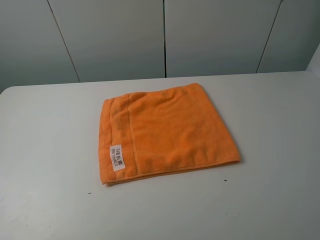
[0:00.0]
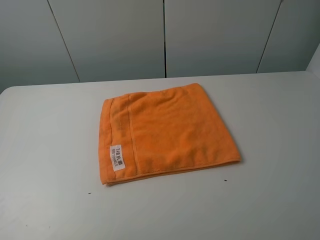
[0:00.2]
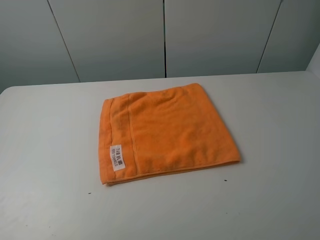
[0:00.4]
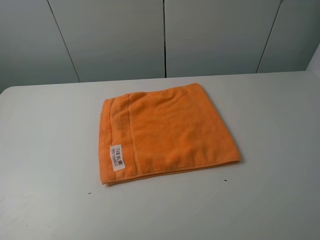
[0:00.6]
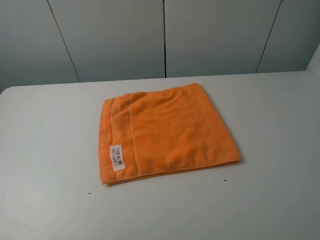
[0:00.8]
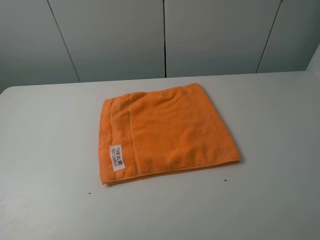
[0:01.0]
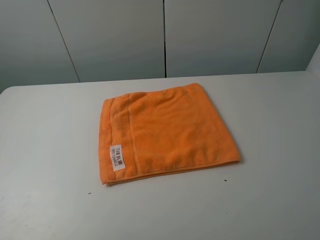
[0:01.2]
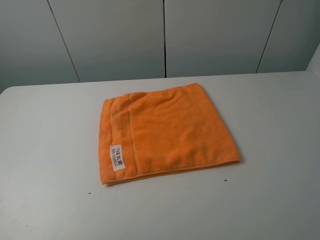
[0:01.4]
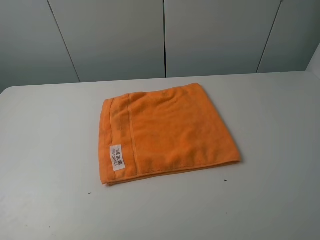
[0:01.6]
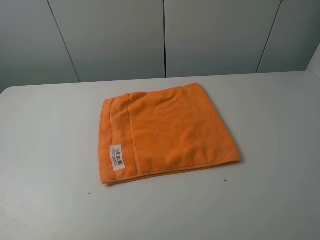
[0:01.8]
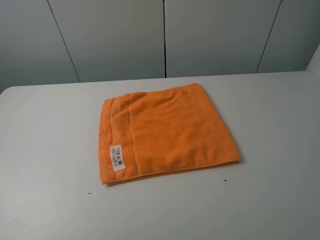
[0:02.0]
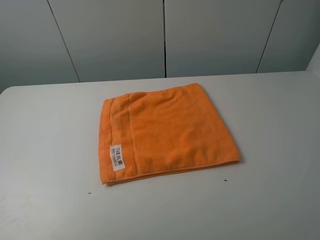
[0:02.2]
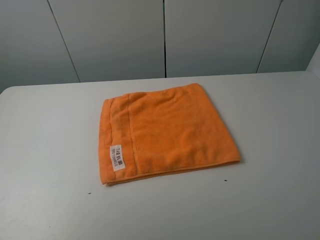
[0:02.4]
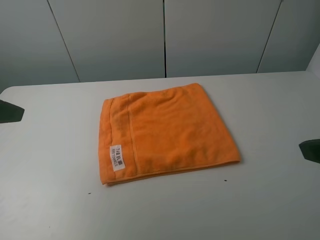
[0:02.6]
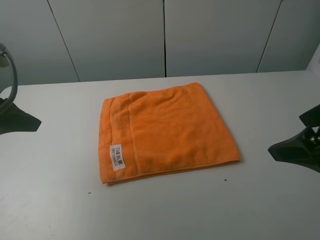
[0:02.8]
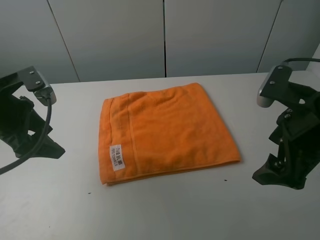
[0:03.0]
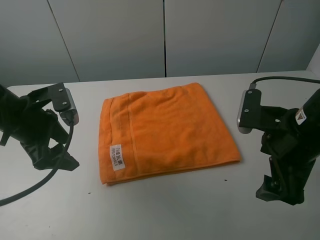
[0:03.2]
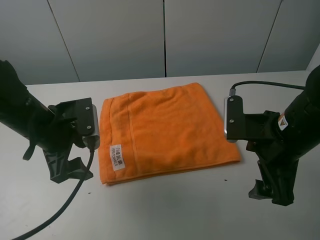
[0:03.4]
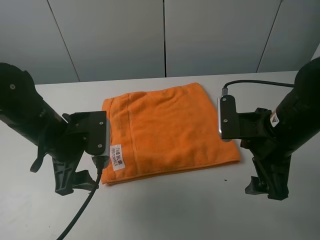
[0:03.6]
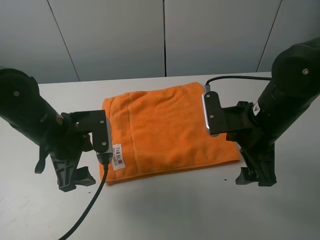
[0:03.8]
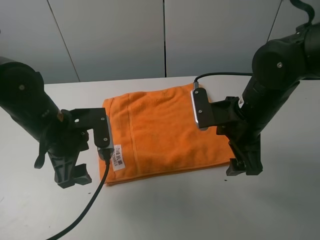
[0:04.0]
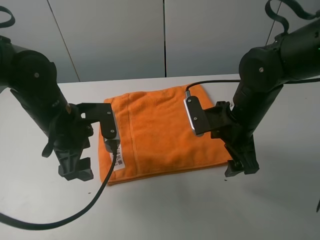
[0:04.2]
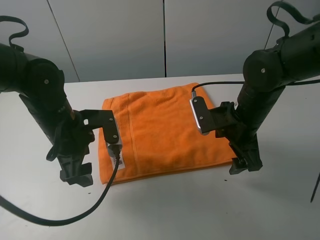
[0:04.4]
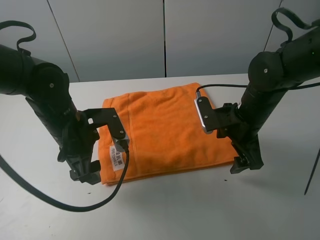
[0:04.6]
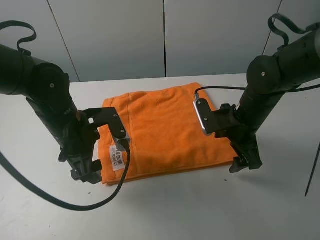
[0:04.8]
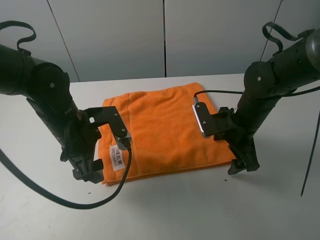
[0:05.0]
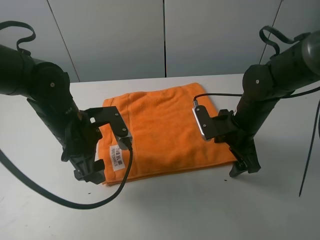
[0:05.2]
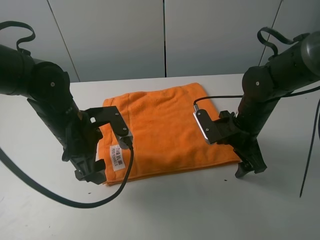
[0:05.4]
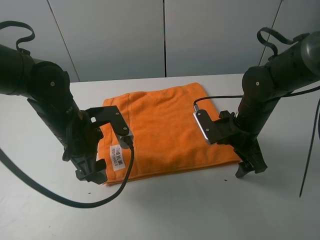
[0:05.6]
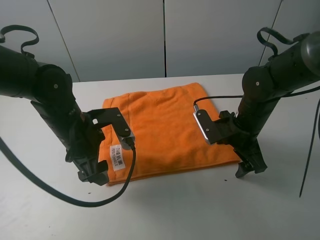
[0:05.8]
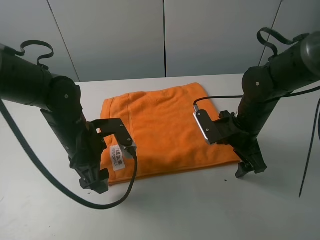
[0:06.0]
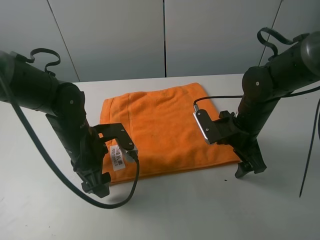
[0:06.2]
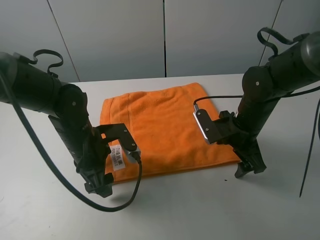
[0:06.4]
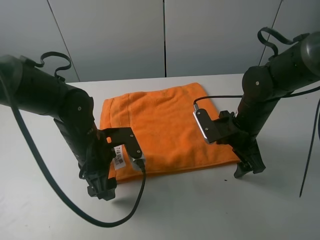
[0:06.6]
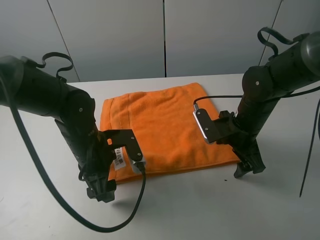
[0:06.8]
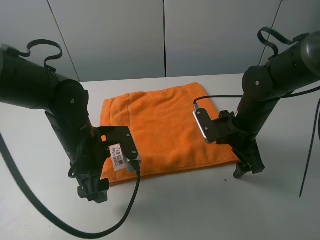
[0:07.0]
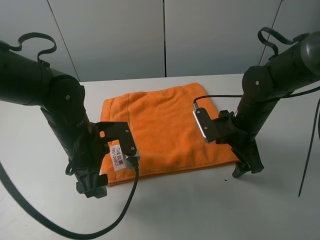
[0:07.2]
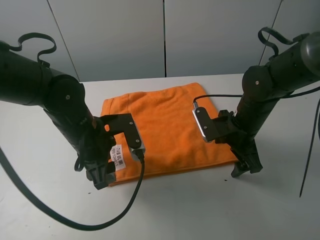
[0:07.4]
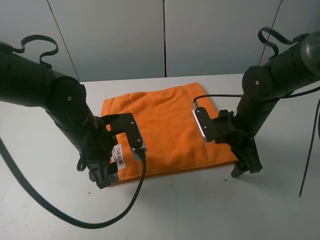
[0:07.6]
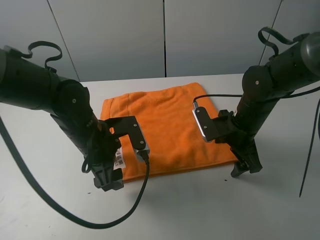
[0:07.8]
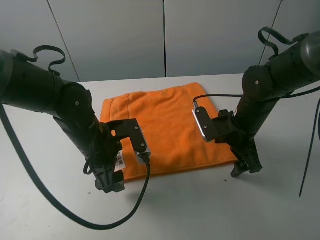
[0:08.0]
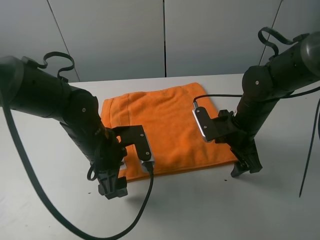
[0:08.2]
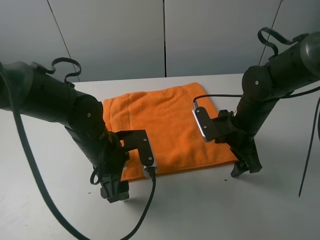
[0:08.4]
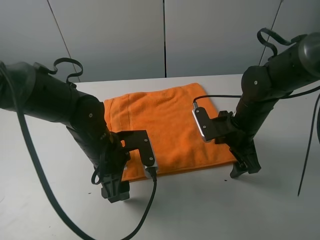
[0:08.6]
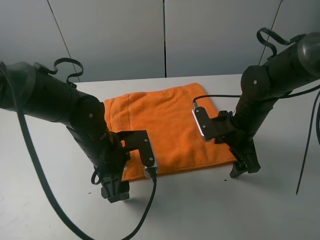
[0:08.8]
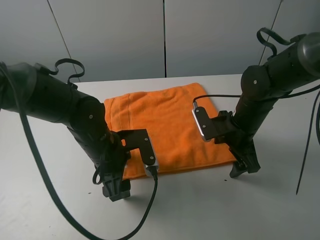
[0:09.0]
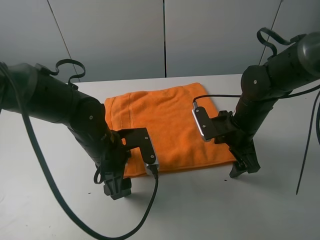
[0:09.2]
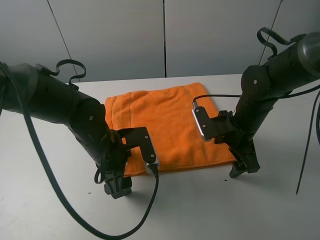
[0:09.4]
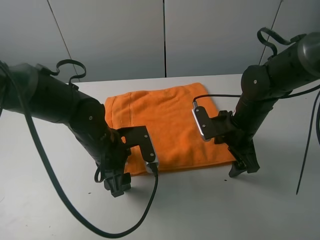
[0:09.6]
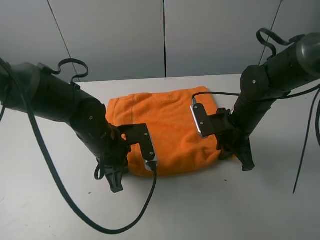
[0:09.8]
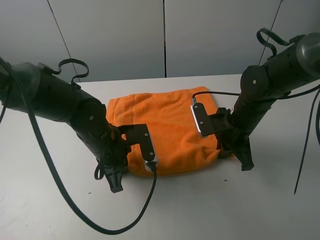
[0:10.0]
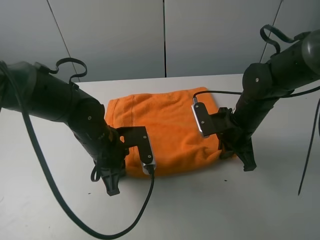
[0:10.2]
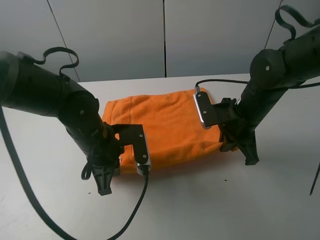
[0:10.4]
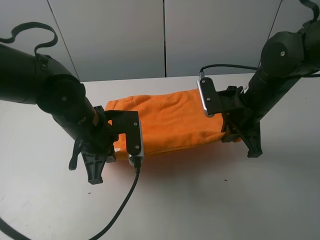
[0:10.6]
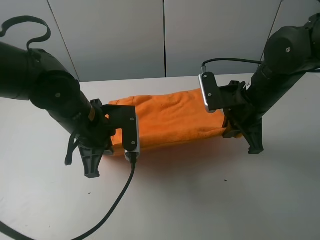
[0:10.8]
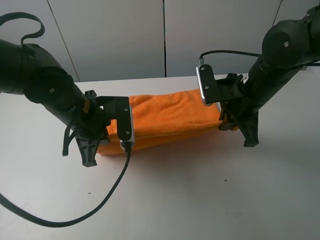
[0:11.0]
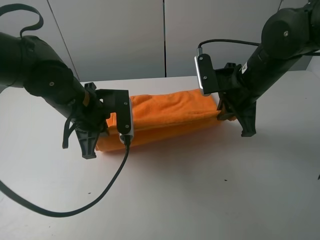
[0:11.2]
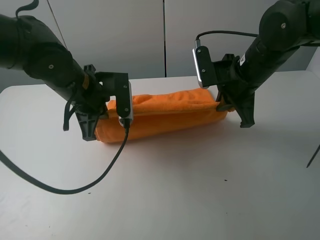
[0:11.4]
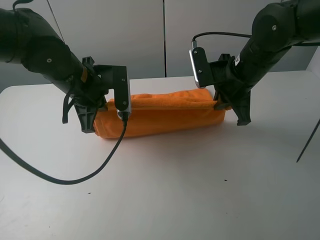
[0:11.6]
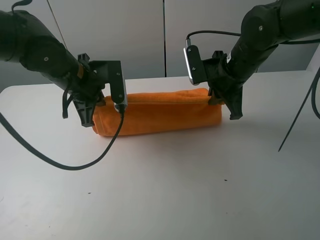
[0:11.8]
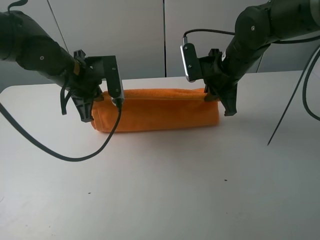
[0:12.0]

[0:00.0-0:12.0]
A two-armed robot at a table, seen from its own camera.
Task of the whole recording: fold the towels on the table.
Step, 0:00.0 to 0:09.8: Grasp the orange towel with the right gripper.
0:00.0 to 0:01.6: Both grippers stay about where they are.
0:01.6 to 0:03.0: The left gripper shifts about 25 cm forward. Meanwhile the right gripper goes roughly 20 cm forward, to the left and downward.
0:03.0 to 0:04.4: The left gripper goes roughly 10 cm to the right and downward. The right gripper travels forward, downward and to the left by about 10 cm.
0:04.4 to 0:07.6: The grippers move only a little.
0:07.6 to 0:09.0: There are only small adjustments of the grippers.
0:09.0 to 0:10.4: The left gripper closes its fingers; the right gripper closes.
0:10.4 to 0:12.0: The left gripper heads forward, upward and to the left, covering about 15 cm. Meanwhile the right gripper travels forward by approximately 5 cm.

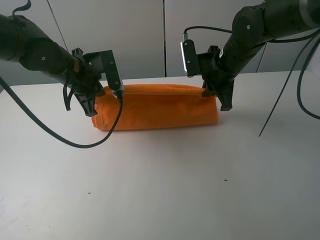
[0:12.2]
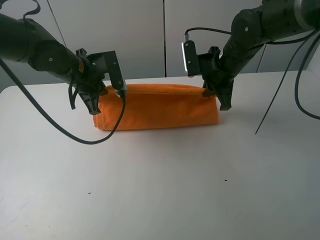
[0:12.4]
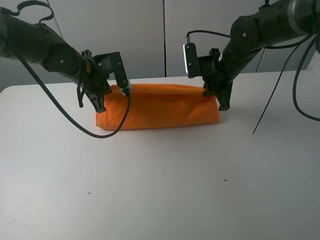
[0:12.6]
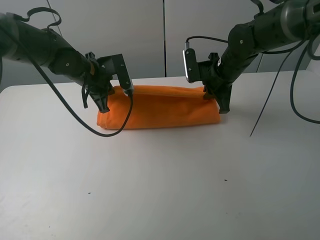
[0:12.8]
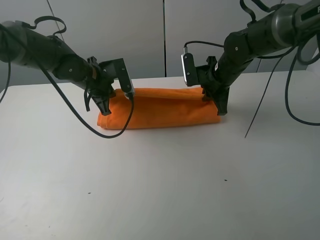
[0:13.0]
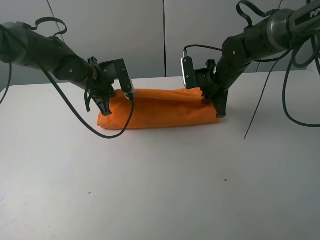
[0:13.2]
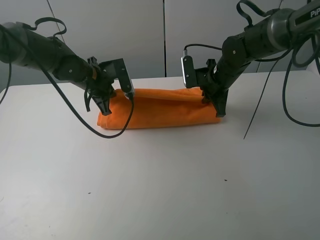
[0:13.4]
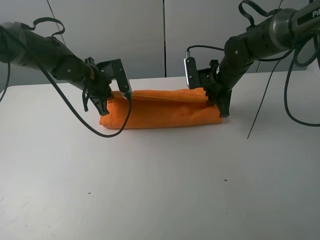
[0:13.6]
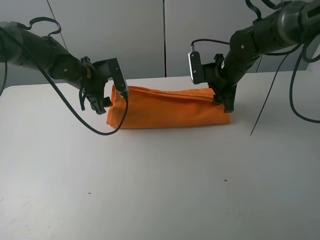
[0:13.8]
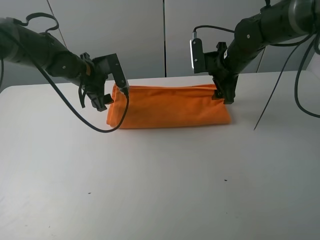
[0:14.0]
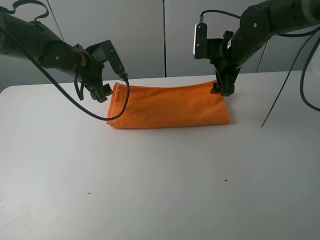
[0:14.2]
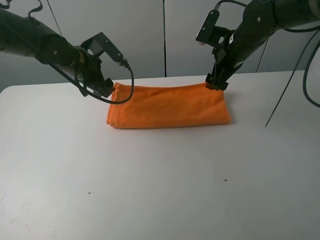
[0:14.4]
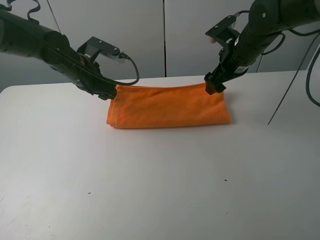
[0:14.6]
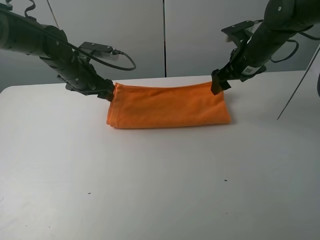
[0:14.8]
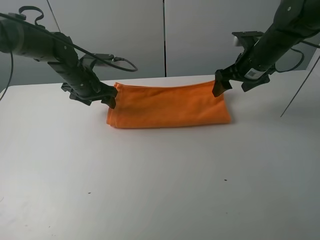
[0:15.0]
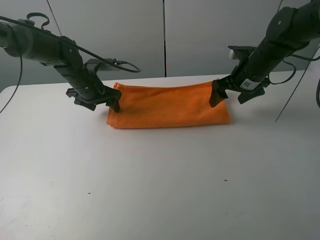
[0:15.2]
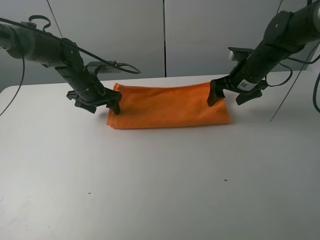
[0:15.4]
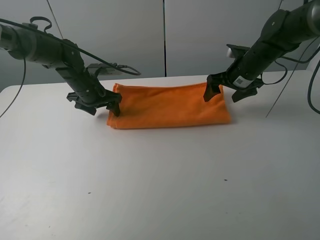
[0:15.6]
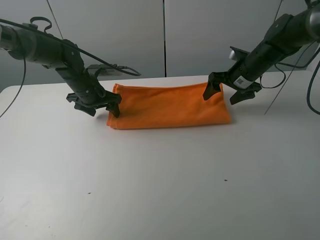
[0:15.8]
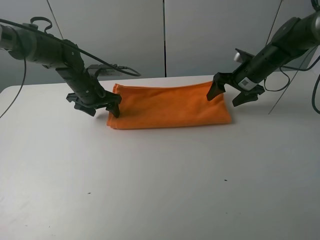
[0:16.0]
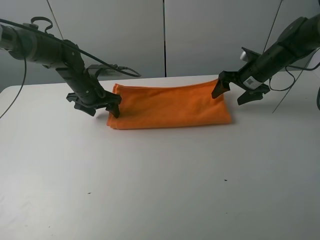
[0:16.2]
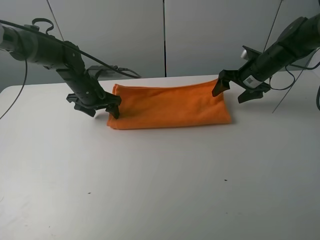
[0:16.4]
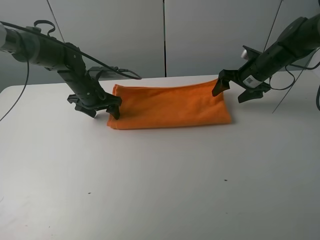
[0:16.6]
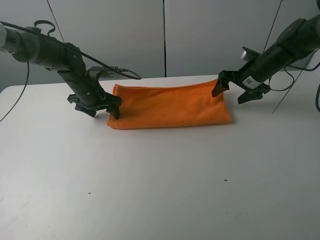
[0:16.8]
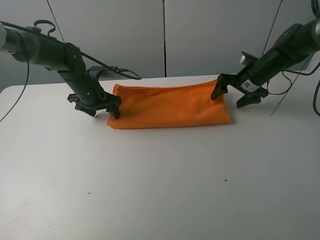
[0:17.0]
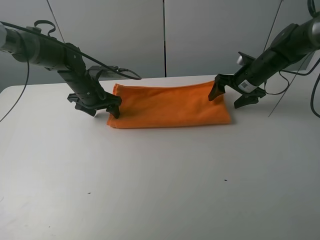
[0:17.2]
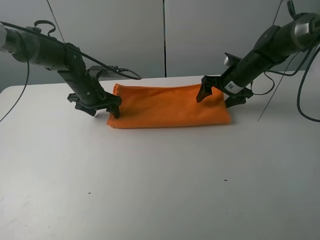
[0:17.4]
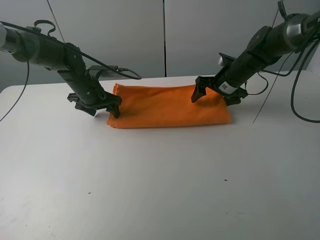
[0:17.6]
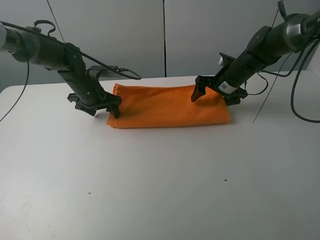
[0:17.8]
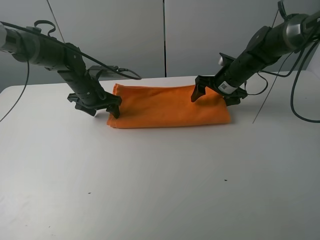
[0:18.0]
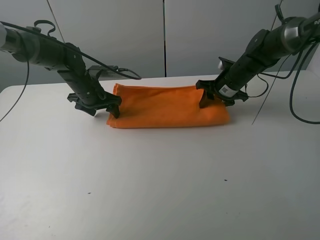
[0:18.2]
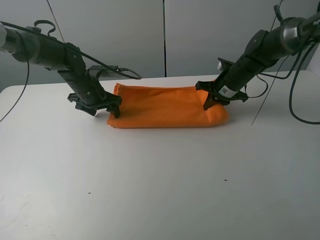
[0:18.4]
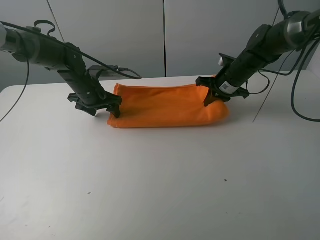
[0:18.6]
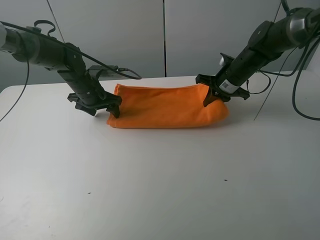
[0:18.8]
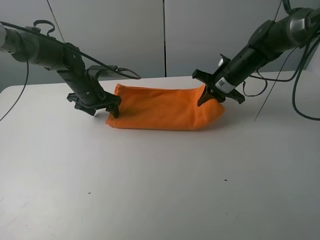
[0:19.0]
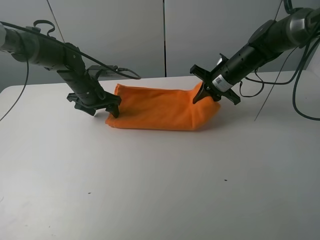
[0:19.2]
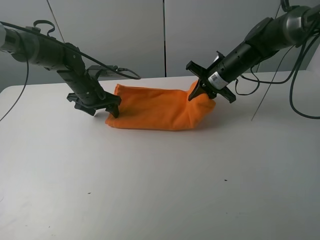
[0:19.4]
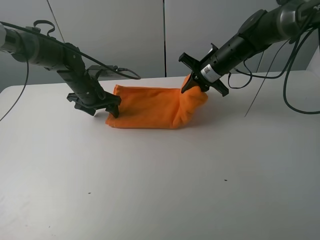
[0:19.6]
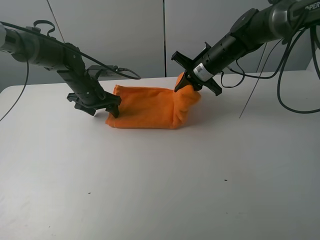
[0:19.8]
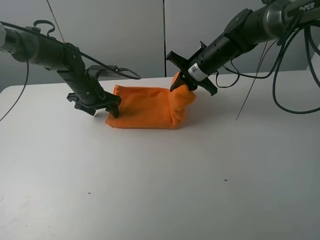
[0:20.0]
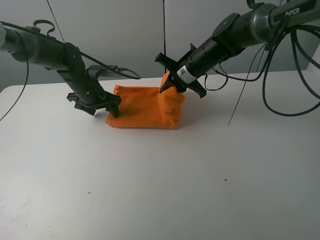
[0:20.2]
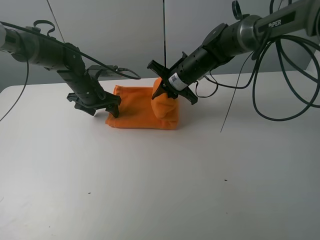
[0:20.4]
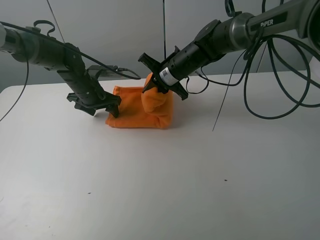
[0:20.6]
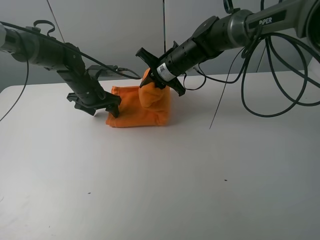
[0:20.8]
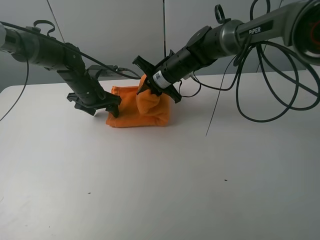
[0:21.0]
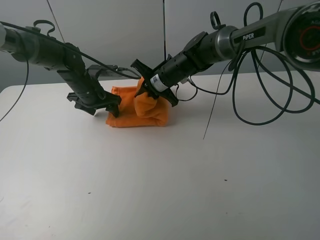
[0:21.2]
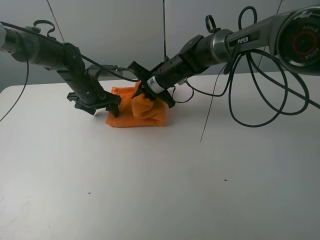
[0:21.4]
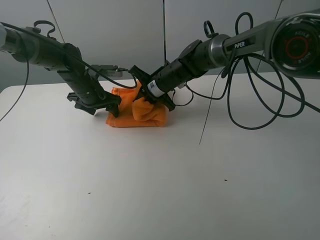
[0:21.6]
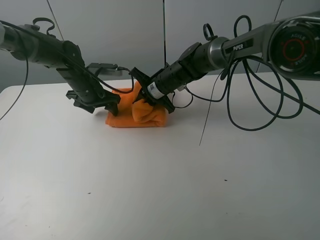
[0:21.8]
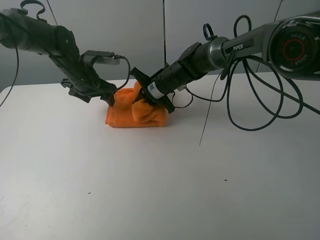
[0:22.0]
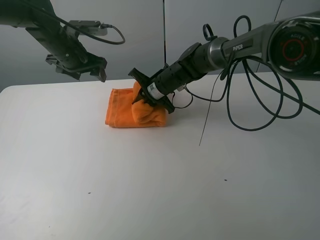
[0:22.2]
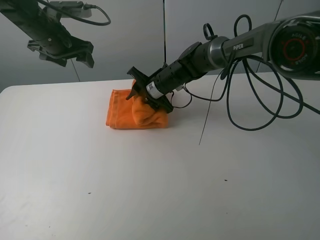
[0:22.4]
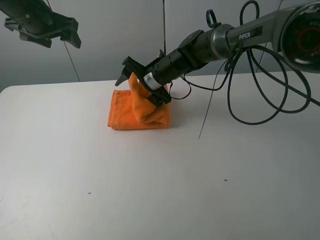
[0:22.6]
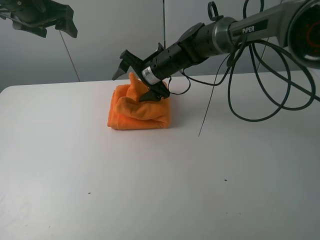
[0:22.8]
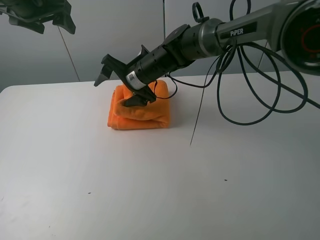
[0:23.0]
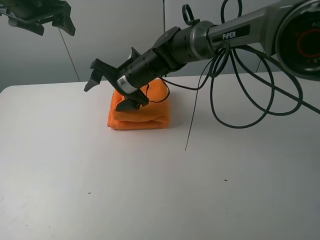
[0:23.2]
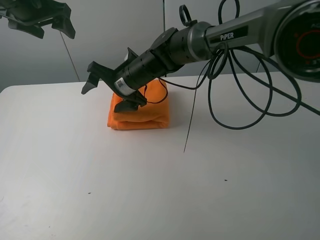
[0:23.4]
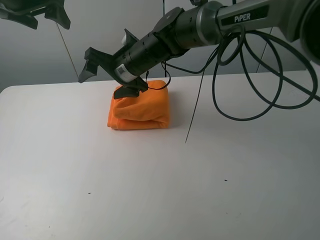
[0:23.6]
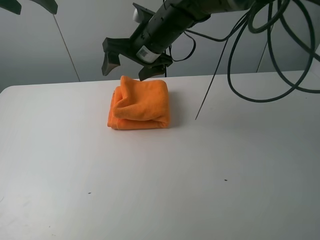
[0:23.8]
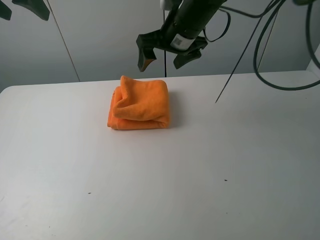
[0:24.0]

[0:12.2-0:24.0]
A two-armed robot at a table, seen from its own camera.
Task of the whole recording: fold the towels on the table.
Step, 0:14.4 to 0:15.6: Press on the orange towel with the left gripper.
Step, 0:15.8 to 0:22.8: Fold the orange towel from right to left with right gripper.
Step, 0:23.0 to 0:23.6: Arrange the orange towel with the right hand.
0:12.2 to 0:13.6: The left gripper shifts by about 5 cm, and opens. Meanwhile the right gripper travels downward by roughly 5 cm.
0:13.6 to 0:15.2: The left gripper opens its fingers; the right gripper shifts some 5 cm to the right, and opens.
0:15.2 to 0:16.6: The right gripper ends up approximately 5 cm from where it was.
0:16.6 to 0:18.2: The right gripper moves to the left, roughly 5 cm, and closes.
0:18.2 to 0:19.6: The right gripper moves some 5 cm.
0:19.6 to 0:21.0: The right gripper travels to the left by approximately 10 cm.
0:21.0 to 0:22.6: The right gripper opens up. Meanwhile the left gripper shifts roughly 20 cm upward.
0:22.6 to 0:24.0: The left gripper is displaced upward and backward by some 10 cm. The right gripper shifts roughly 15 cm upward.
